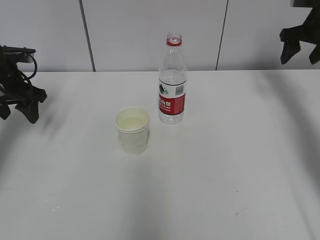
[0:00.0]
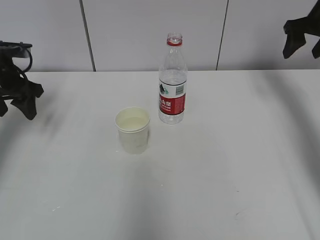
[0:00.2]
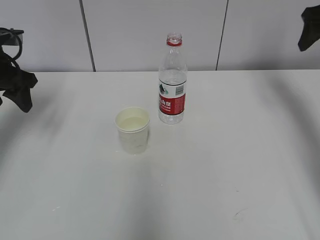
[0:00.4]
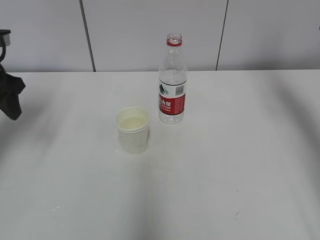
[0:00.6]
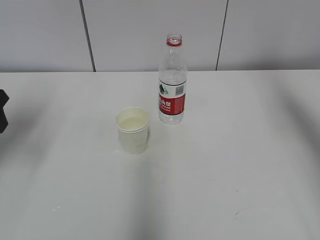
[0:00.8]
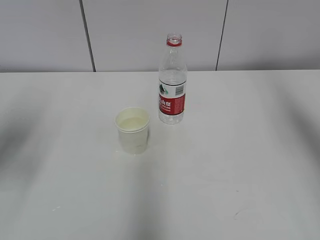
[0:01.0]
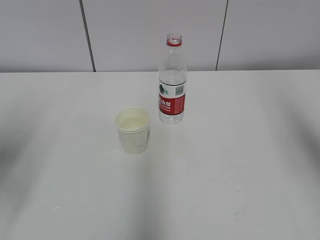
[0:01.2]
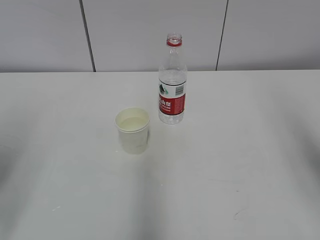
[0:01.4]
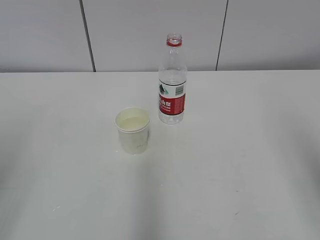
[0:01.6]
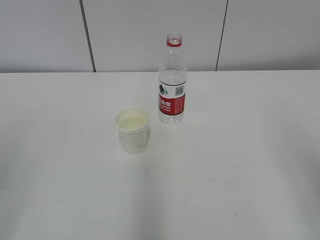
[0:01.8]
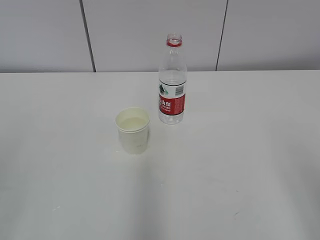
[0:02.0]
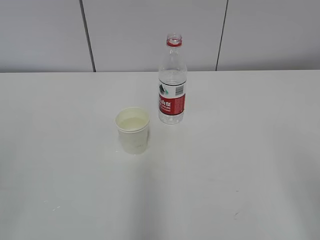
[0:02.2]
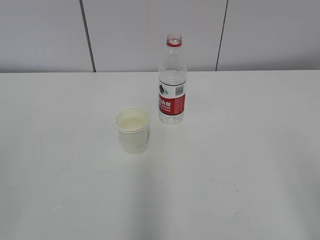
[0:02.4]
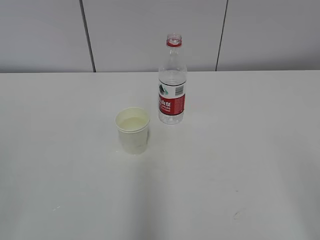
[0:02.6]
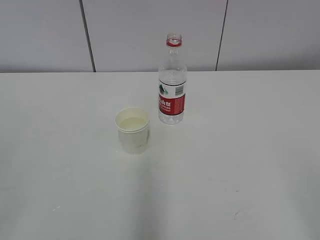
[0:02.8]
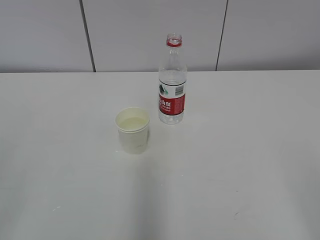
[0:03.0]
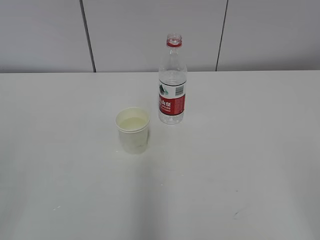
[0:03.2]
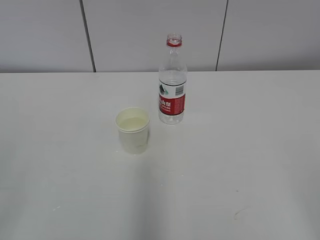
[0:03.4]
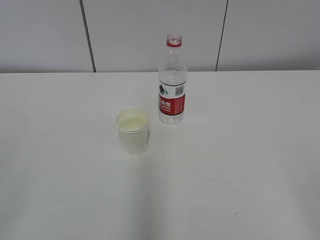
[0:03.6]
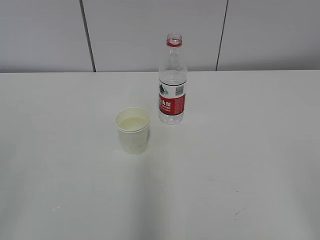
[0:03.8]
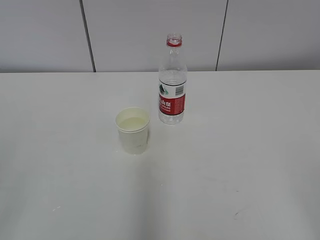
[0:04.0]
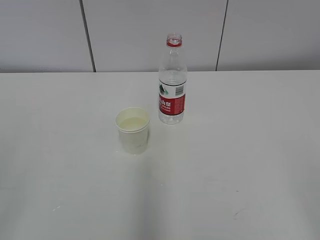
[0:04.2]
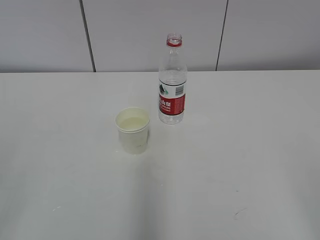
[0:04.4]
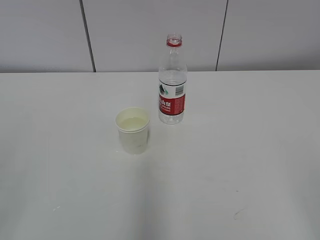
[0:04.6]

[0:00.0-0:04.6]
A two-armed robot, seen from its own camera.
0:00.0 to 0:01.6: Both grippers move backward, about 35 cm.
0:03.0 to 0:04.6: Both grippers stay about where they are.

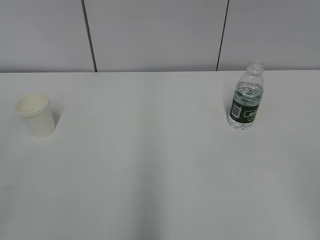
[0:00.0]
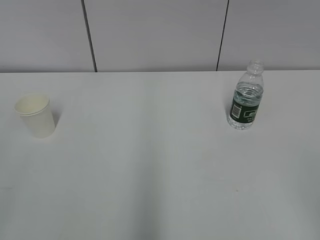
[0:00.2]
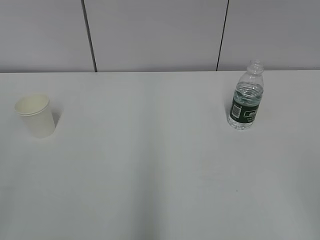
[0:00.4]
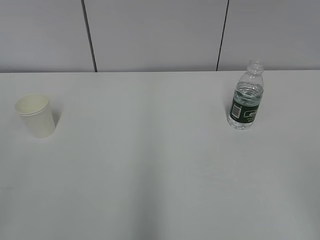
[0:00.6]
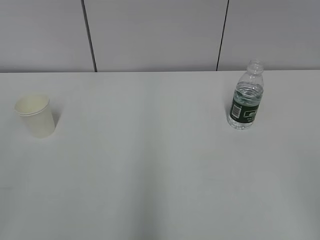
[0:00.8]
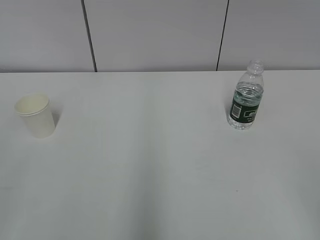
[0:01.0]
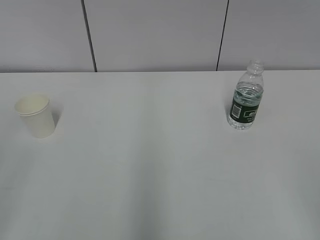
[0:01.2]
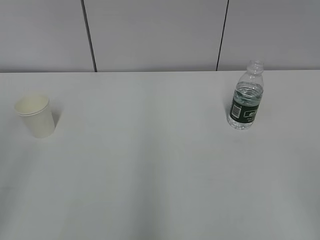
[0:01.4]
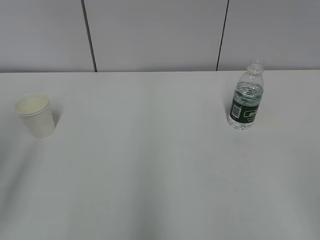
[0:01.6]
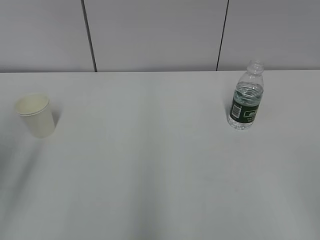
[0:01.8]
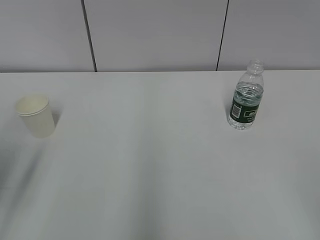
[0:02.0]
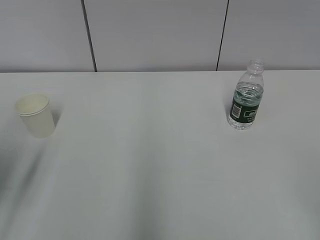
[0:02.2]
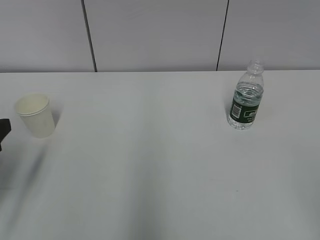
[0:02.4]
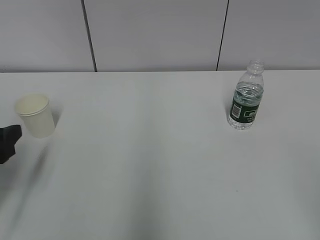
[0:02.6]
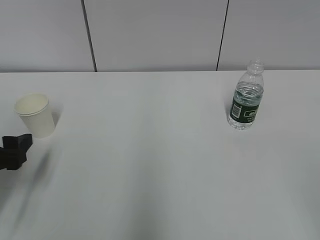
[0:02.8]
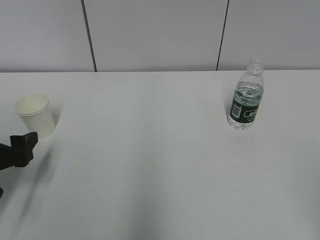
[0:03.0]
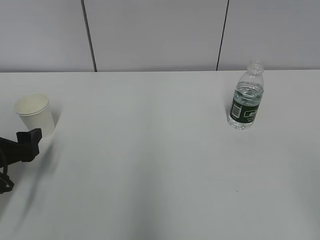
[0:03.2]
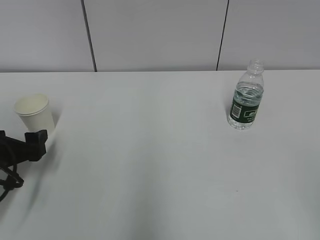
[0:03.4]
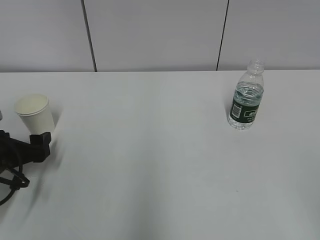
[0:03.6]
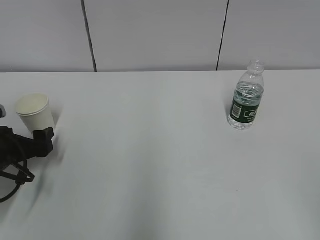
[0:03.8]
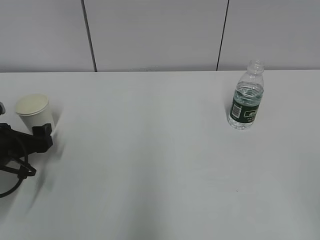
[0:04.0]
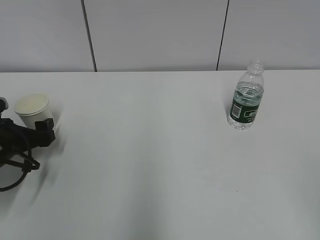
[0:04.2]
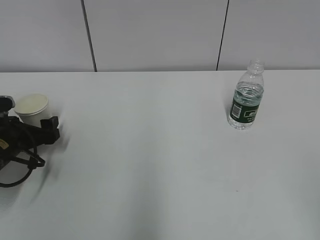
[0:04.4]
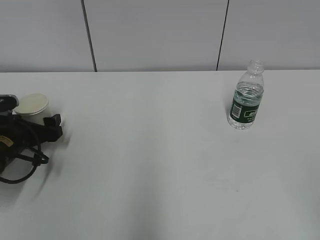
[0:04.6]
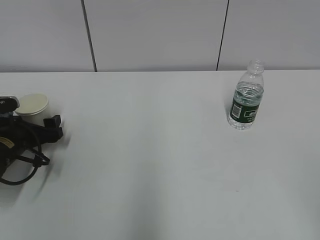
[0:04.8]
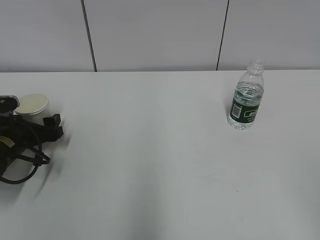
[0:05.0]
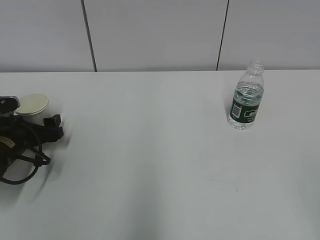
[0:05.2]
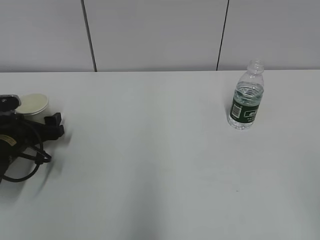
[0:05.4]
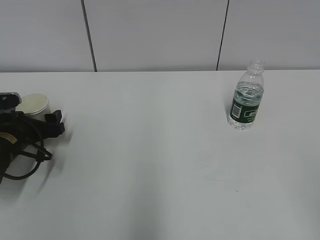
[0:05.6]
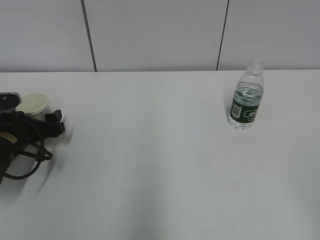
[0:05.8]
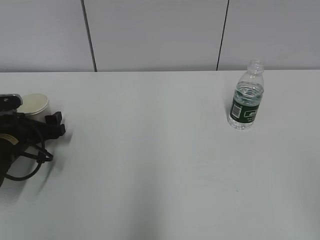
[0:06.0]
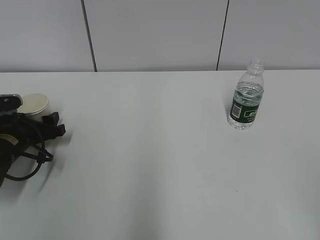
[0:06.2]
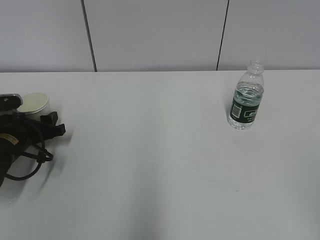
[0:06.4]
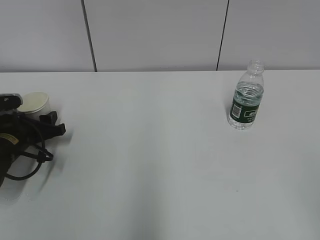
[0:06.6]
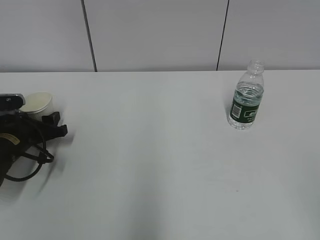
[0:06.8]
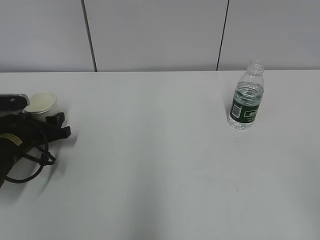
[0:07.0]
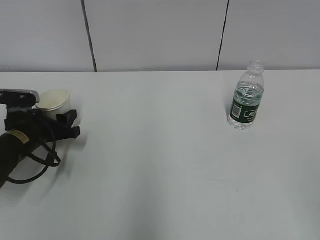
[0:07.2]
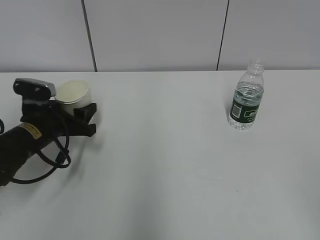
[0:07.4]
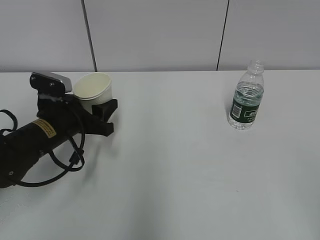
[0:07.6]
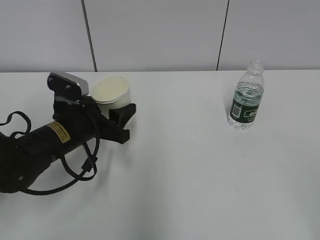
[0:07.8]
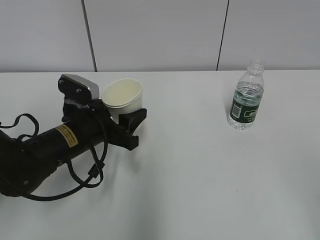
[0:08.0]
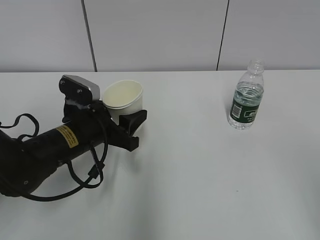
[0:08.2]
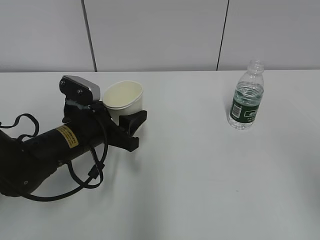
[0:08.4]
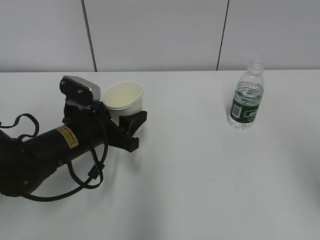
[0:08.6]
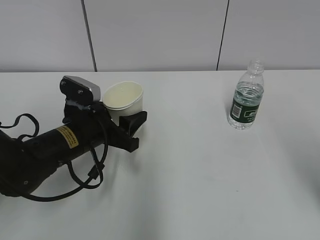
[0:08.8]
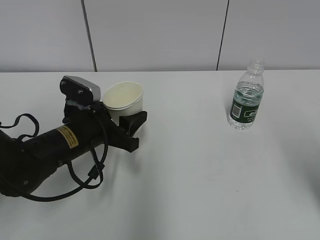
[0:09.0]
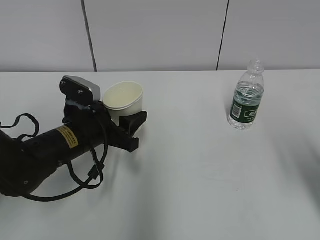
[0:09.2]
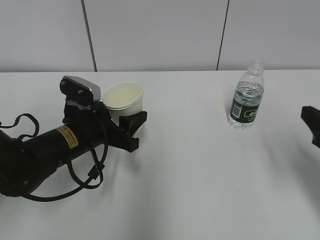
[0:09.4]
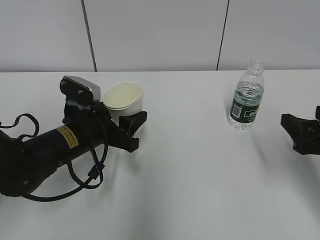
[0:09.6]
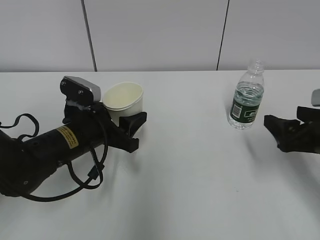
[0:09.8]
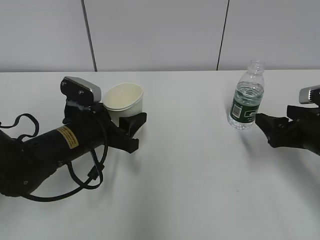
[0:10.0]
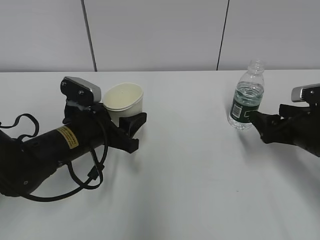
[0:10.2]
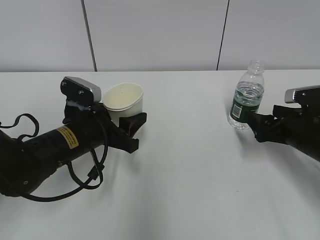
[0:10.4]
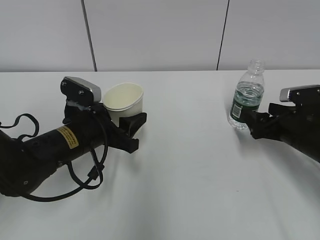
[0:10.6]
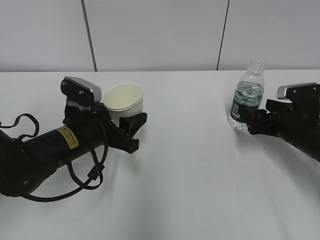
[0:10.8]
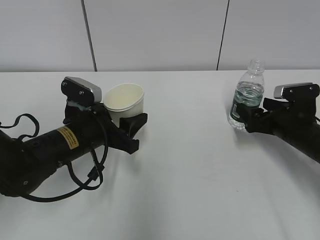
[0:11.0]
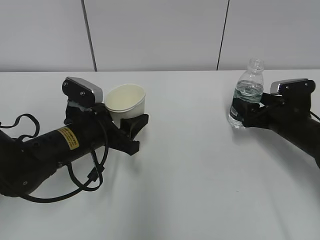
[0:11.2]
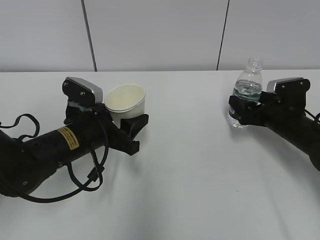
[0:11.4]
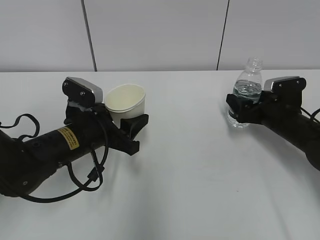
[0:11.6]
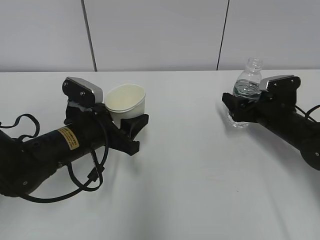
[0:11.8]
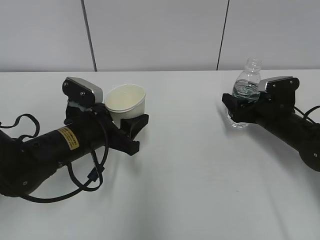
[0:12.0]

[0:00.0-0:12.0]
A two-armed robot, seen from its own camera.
Step, 0:00.0 to 0:05.4: Grab the paper cup with the left hand.
Step, 0:05.6 to 0:11.0: Grab the water bottle with the right hand.
0:01.6 to 0:03.0: The left gripper goes some 20 cm downward and forward.
0:03.0 to 0:04.4: The left gripper heads forward and downward, covering roughly 10 cm.
0:04.4 to 0:06.0: The grippers stay close to where they were, moving slightly.
0:06.0 to 0:07.6: The left gripper travels to the right and upward by roughly 10 cm, and closes up.
0:07.6 to 0:09.0: The left gripper moves to the right, roughly 5 cm, while the right gripper moves forward, roughly 15 cm.
0:09.0 to 0:10.4: The right gripper heads forward and downward, covering approximately 20 cm.
0:10.4 to 0:12.0: The right gripper moves forward, roughly 10 cm.

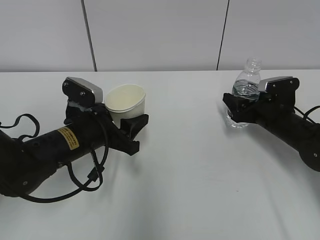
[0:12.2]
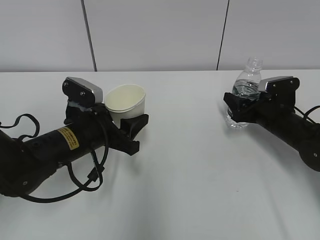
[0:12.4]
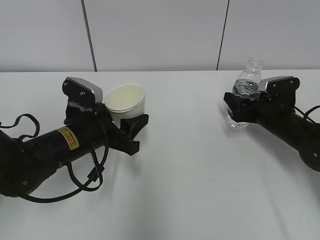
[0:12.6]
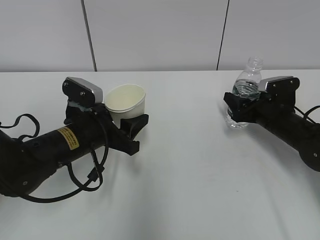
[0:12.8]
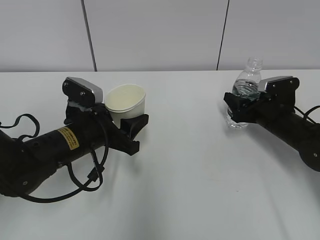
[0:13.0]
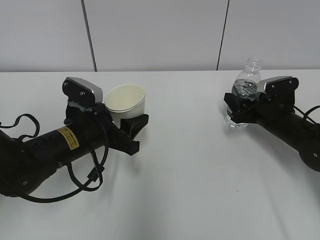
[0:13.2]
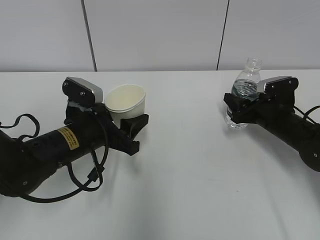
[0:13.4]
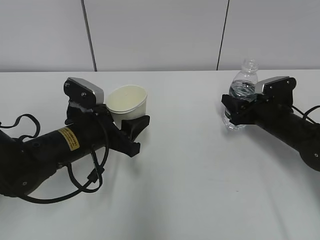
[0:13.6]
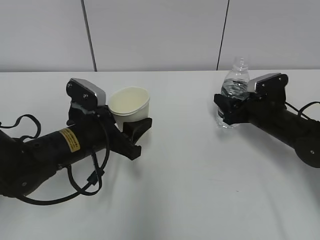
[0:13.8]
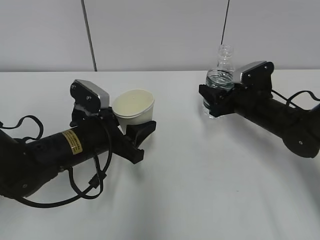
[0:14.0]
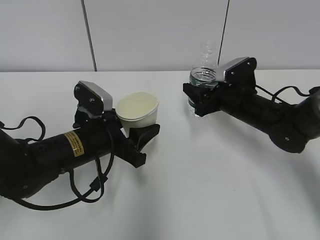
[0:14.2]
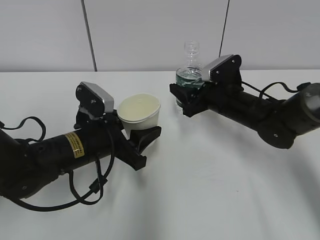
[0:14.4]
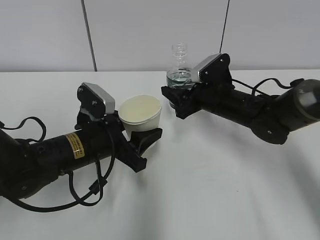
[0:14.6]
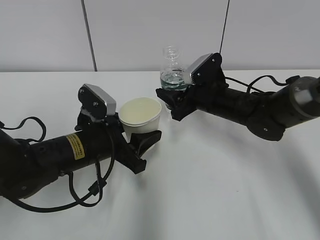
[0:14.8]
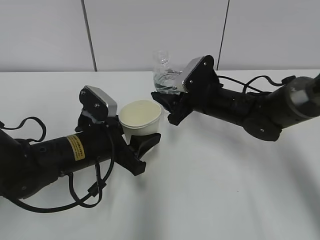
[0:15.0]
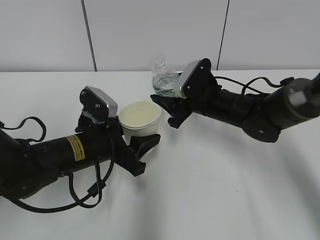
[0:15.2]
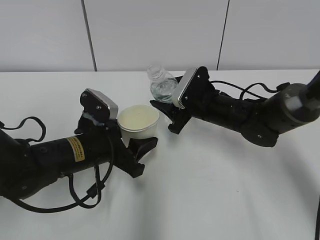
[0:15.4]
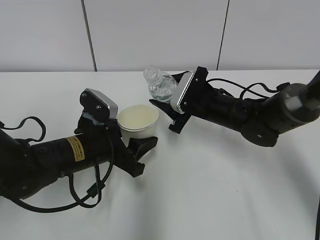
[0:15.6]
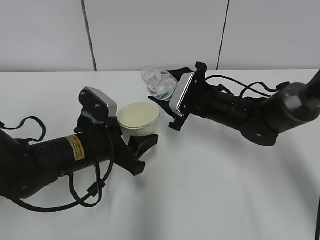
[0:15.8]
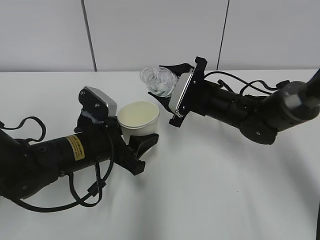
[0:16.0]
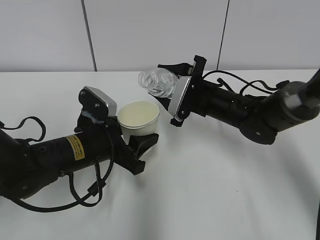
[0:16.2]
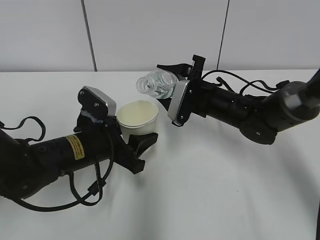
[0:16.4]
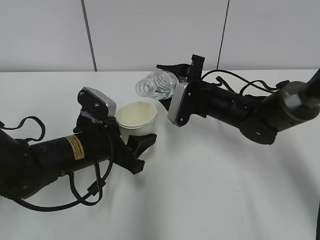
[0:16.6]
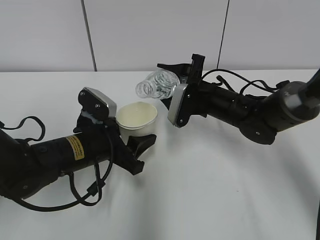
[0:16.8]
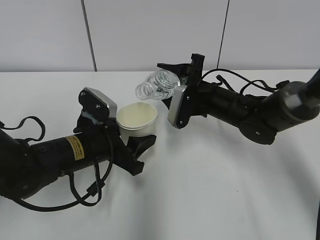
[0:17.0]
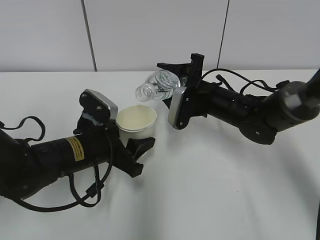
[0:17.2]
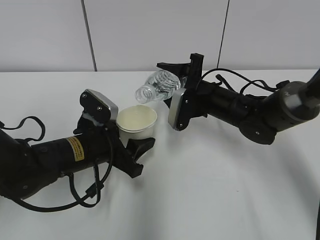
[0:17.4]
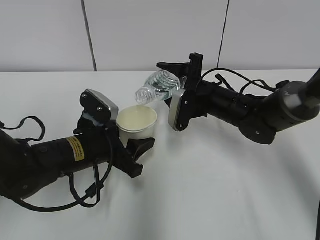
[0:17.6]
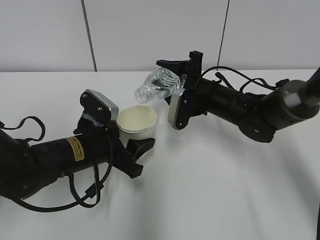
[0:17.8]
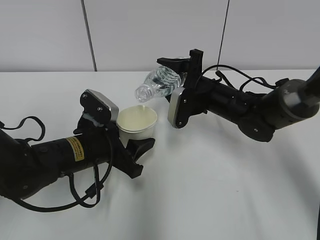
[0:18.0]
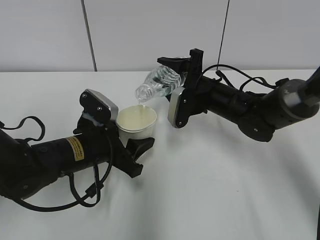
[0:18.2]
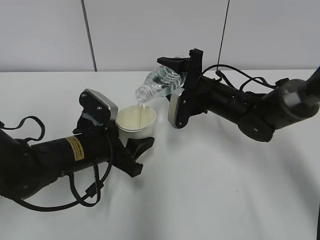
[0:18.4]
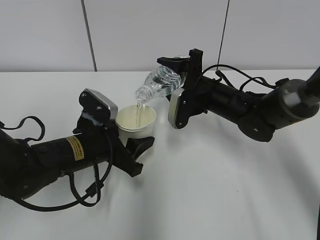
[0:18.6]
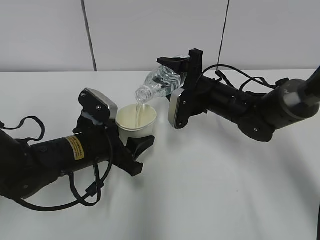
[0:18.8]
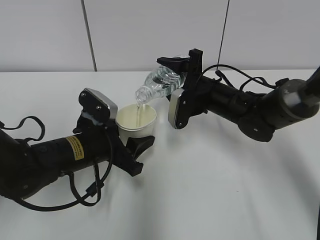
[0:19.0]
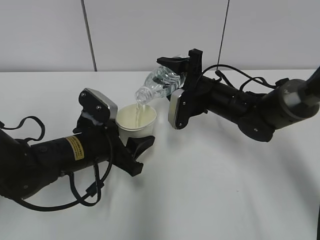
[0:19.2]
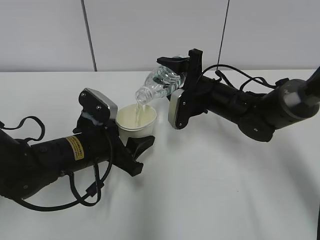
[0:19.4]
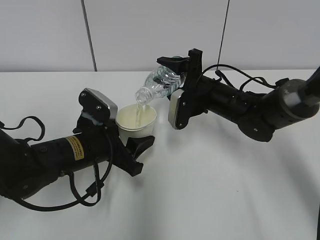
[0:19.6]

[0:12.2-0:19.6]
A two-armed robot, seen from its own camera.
Step, 0:15.0 to 0:19.4: Fill water with the left hand.
Step, 0:15.0 to 0:19.4: Pour water with the right hand.
0:12.2 to 0:13.6: The right gripper closes.
0:13.6 to 0:15.2: The right gripper goes about 15 cm to the left.
0:16.6 to 0:18.2: There are only small adjustments of the grippers.
0:18.2 to 0:19.6: The two grippers keep their place.
